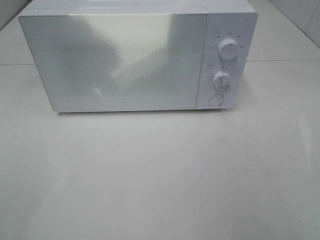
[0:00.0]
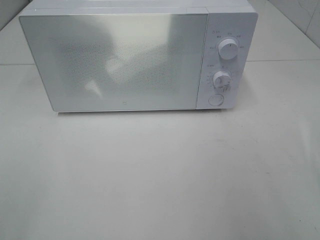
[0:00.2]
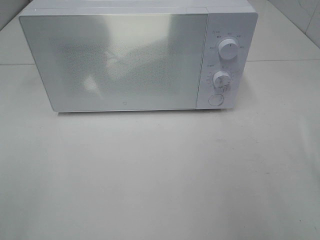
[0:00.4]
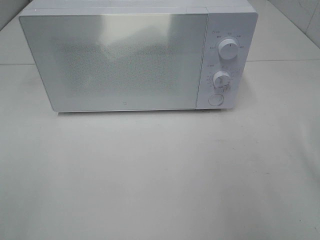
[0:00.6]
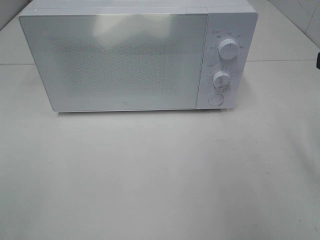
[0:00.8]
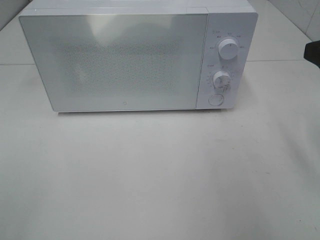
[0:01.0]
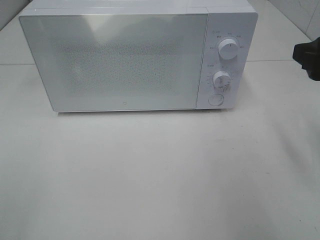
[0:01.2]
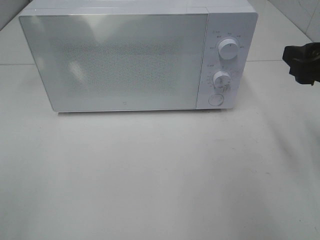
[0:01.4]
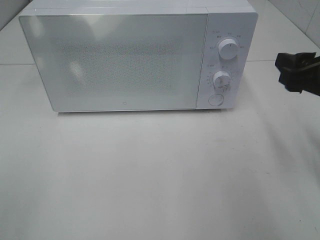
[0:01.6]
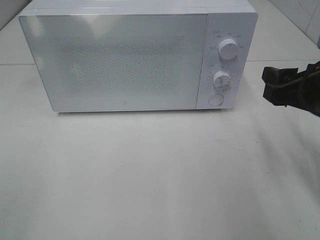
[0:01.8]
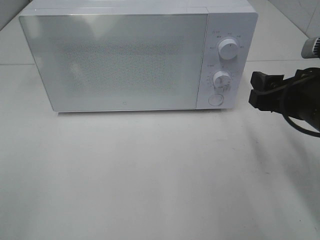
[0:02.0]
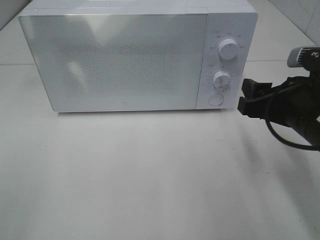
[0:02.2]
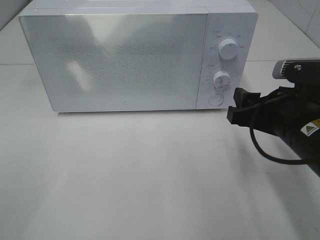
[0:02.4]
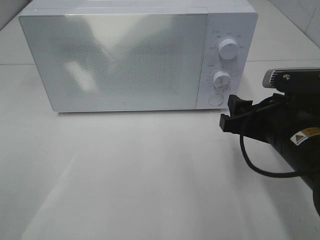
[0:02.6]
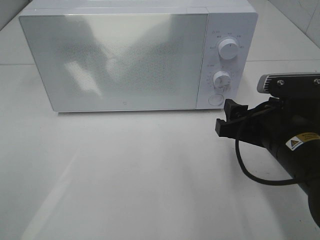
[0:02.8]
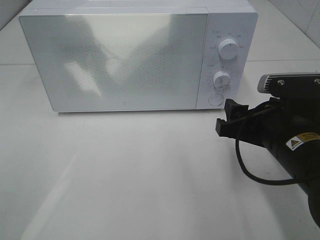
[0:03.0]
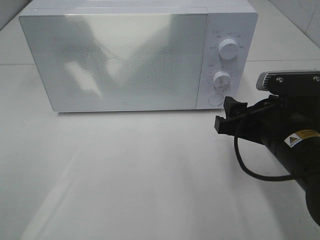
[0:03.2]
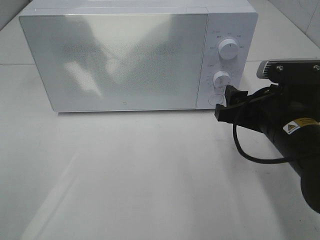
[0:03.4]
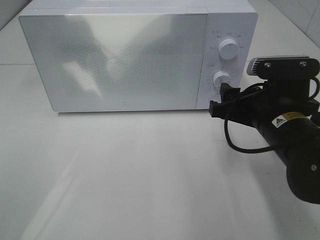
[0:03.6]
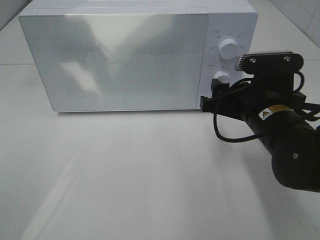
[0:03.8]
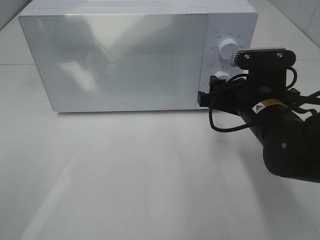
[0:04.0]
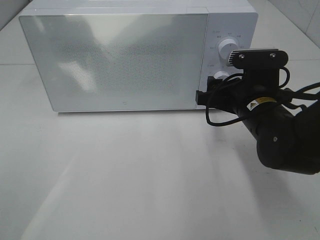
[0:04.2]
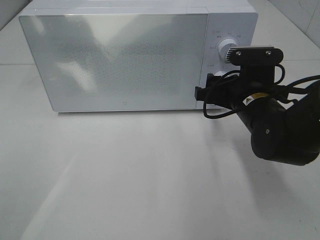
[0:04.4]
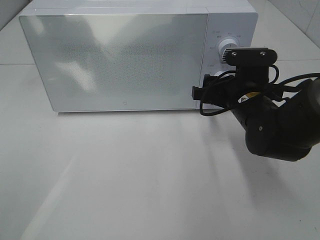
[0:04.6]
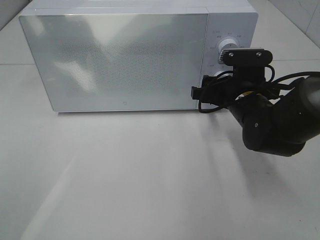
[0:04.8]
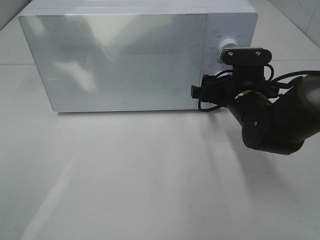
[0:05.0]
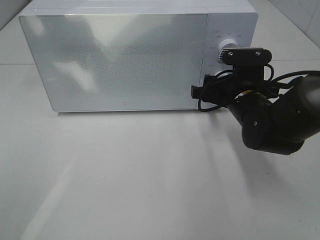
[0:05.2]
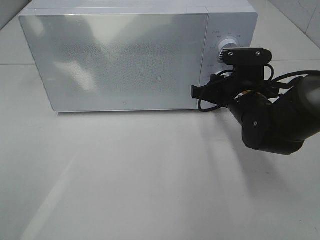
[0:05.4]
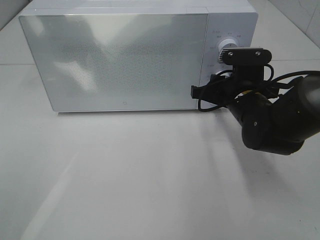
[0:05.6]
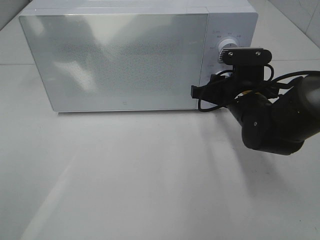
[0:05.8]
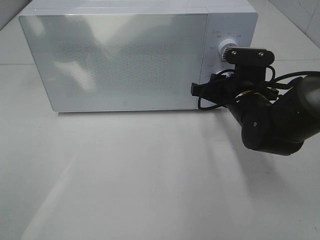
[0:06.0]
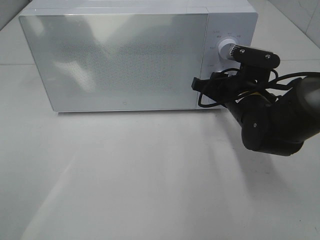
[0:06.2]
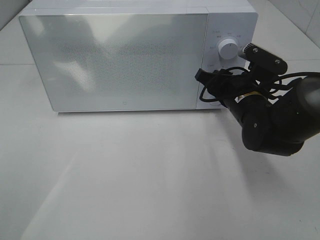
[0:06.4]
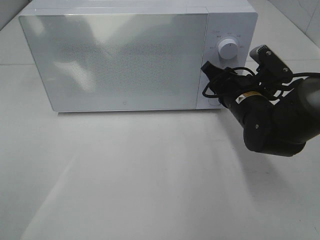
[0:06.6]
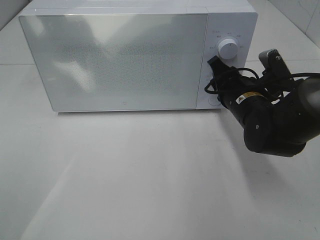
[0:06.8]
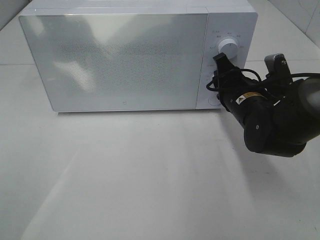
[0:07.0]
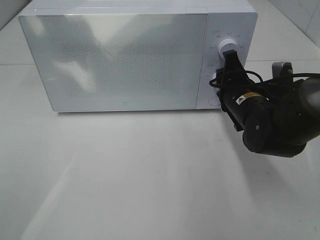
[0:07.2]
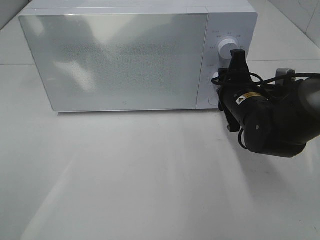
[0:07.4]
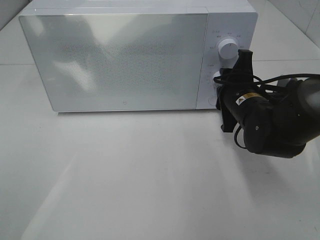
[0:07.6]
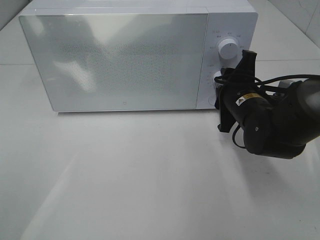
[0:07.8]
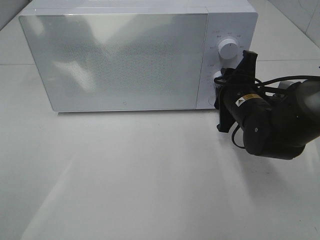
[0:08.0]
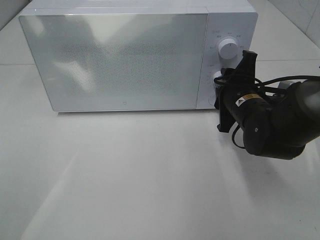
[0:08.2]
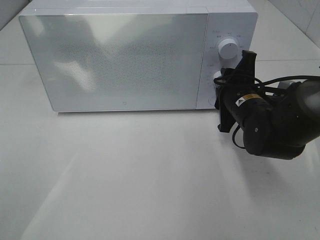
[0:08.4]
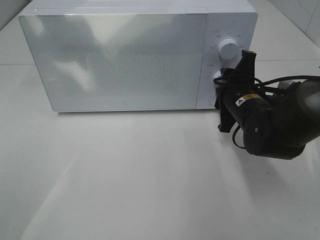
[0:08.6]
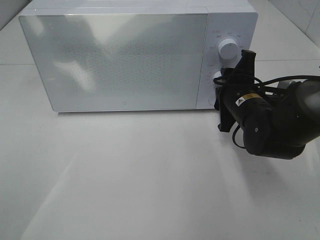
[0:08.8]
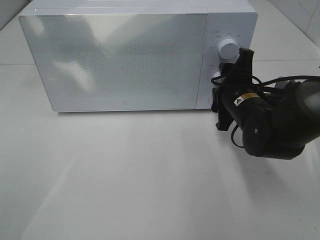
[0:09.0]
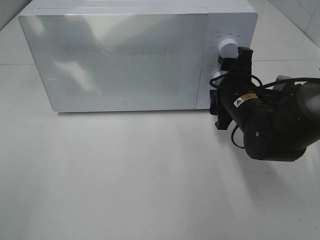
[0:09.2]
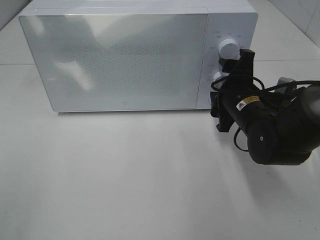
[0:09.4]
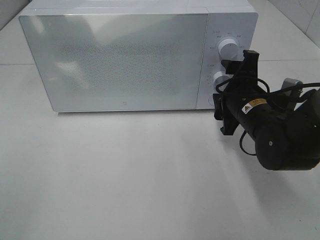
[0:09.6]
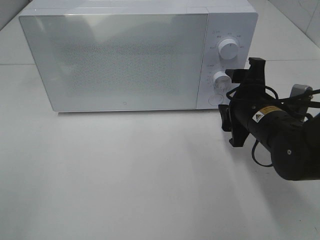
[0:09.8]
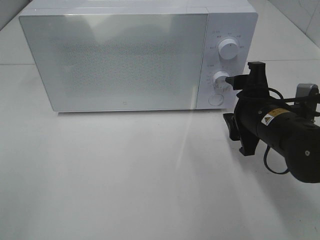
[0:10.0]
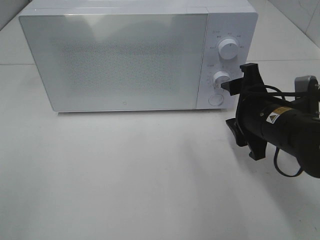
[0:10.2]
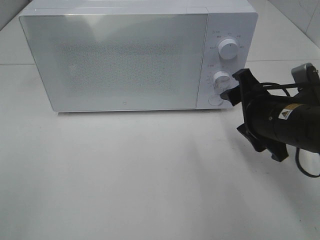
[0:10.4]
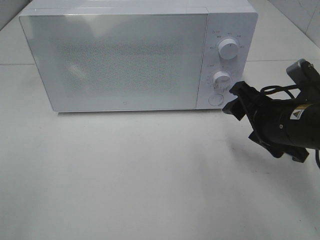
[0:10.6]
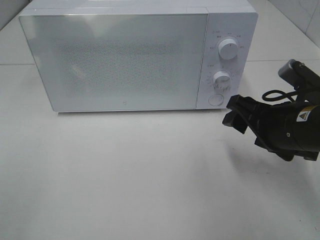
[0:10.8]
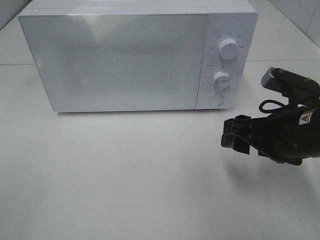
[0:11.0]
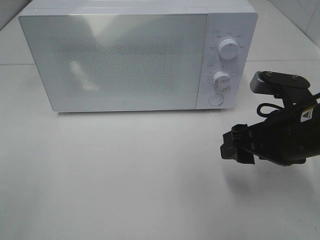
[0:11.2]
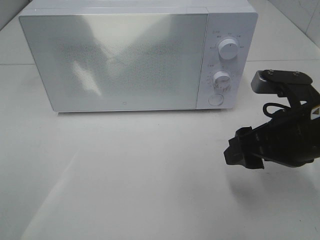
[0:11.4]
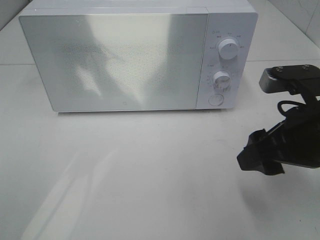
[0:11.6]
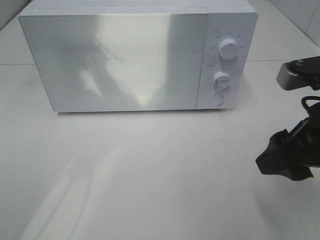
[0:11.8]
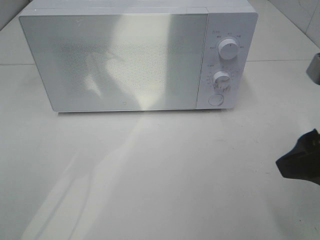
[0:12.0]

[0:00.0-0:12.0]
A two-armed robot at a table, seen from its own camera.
Task of the whole recording: Heat Sandwich.
Step, 0:00.0 to 0:09.2: Right hand: twist timer button.
0:00.0 to 0:01.6: The right gripper is displaced forward and downward by roughly 15 cm.
0:01.6 to 0:03.0: The right gripper travels to the left and downward by about 10 cm.
0:03.0 to 0:04.4: The right gripper is displaced forward by approximately 10 cm.
0:04.4 to 0:06.0: The right gripper closes.
0:07.6 to 0:09.0: The grippers move only a little.
0:09.0 to 0:10.4: The right gripper moves backward, approximately 10 cm.
0:10.4 to 0:12.0: The right gripper is displaced backward and upward by some 15 cm.

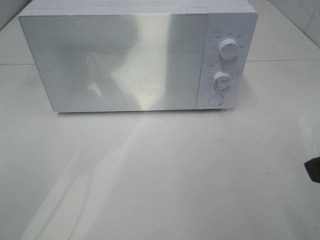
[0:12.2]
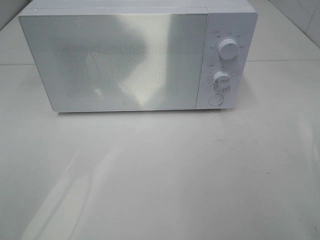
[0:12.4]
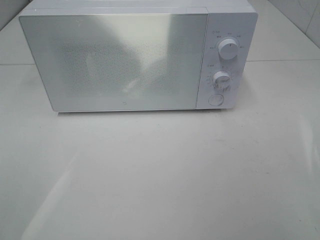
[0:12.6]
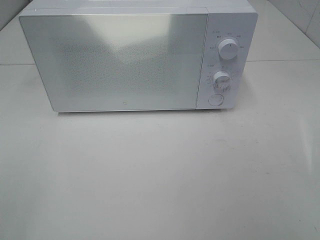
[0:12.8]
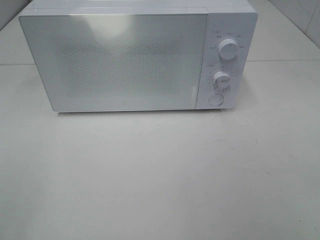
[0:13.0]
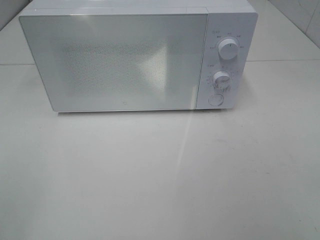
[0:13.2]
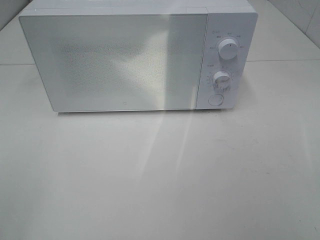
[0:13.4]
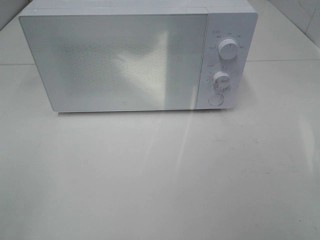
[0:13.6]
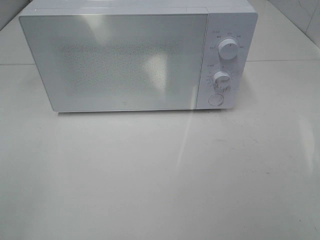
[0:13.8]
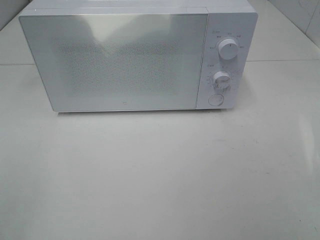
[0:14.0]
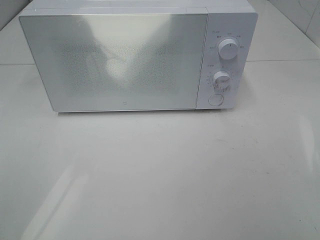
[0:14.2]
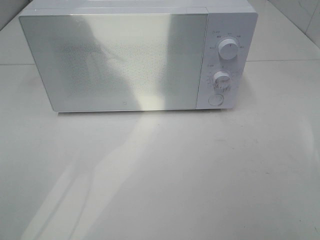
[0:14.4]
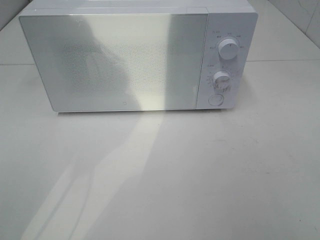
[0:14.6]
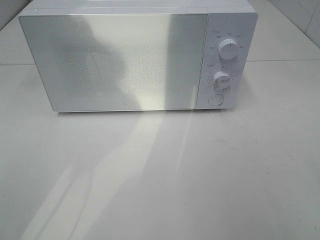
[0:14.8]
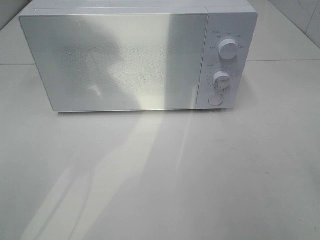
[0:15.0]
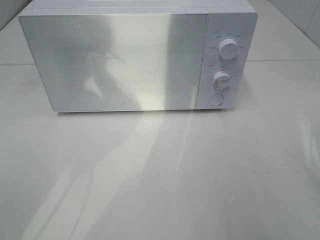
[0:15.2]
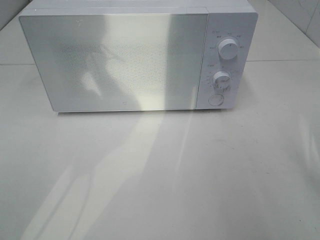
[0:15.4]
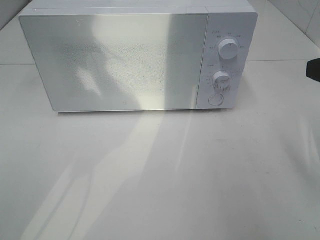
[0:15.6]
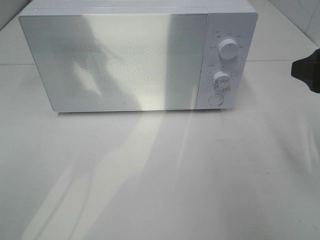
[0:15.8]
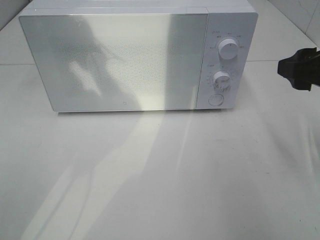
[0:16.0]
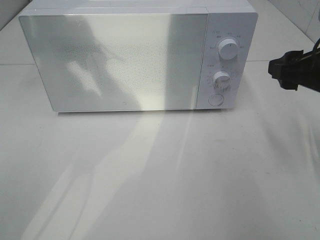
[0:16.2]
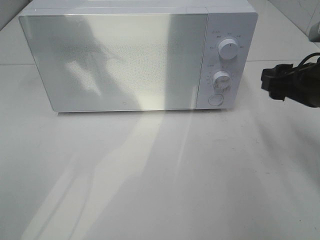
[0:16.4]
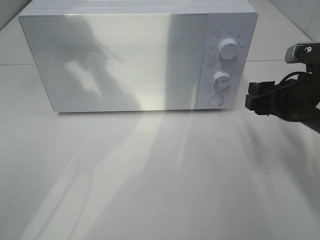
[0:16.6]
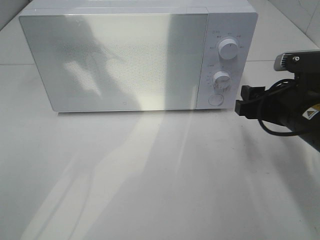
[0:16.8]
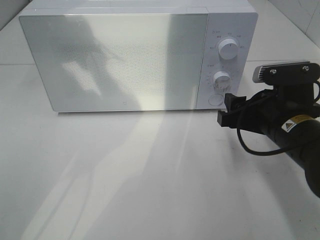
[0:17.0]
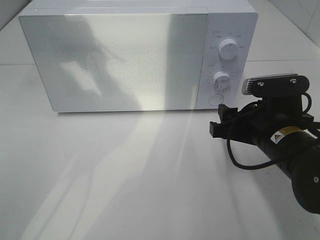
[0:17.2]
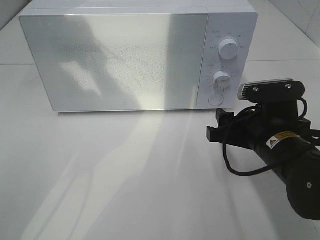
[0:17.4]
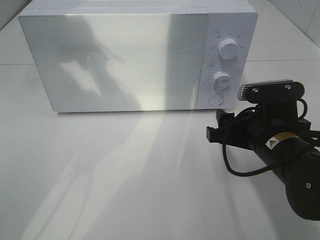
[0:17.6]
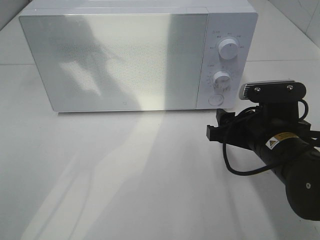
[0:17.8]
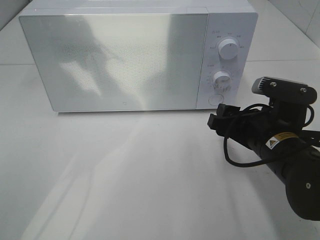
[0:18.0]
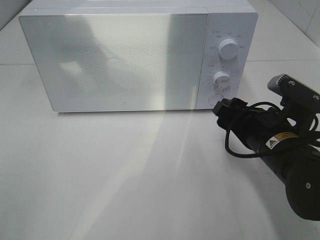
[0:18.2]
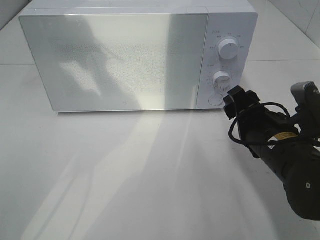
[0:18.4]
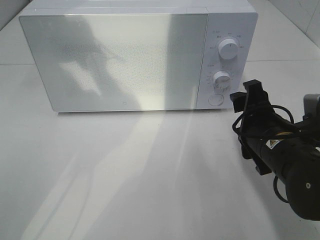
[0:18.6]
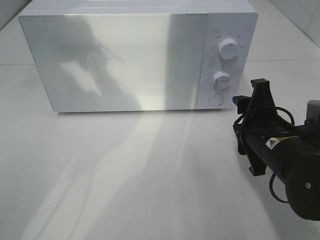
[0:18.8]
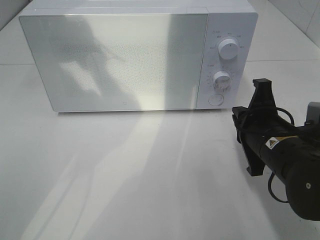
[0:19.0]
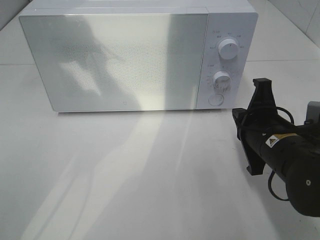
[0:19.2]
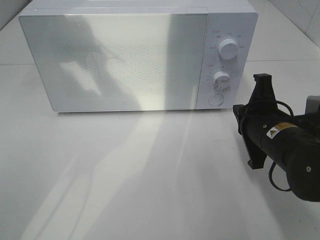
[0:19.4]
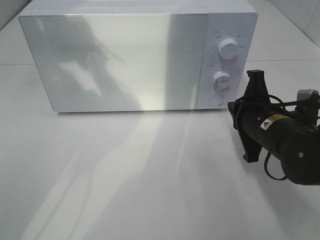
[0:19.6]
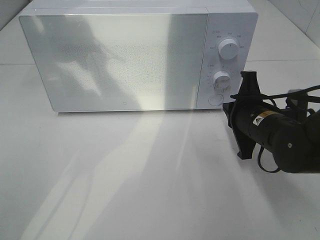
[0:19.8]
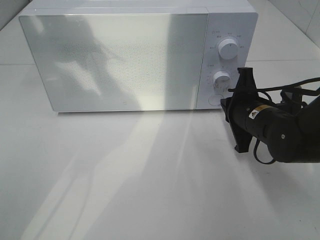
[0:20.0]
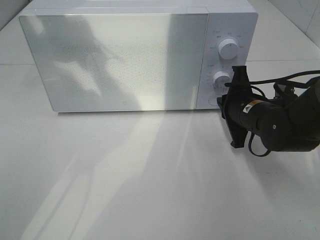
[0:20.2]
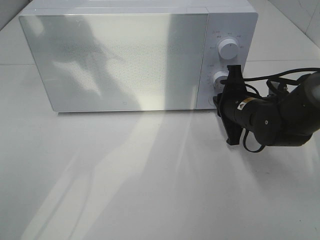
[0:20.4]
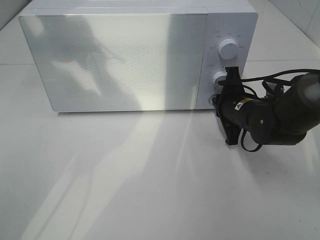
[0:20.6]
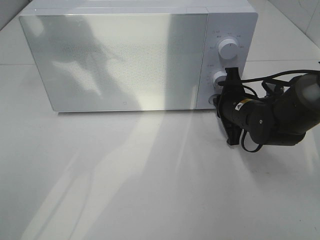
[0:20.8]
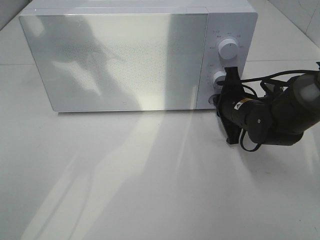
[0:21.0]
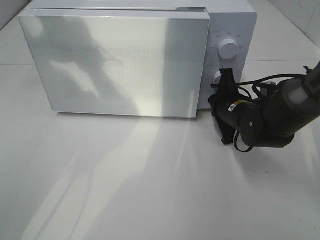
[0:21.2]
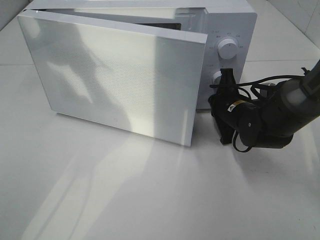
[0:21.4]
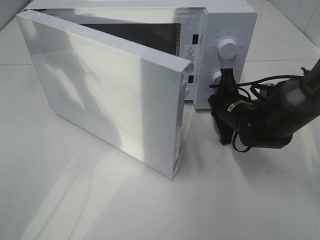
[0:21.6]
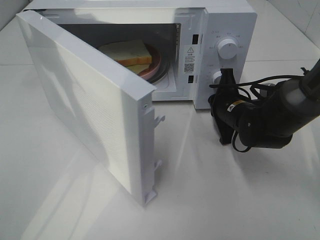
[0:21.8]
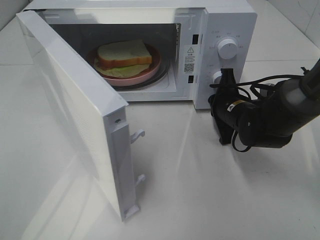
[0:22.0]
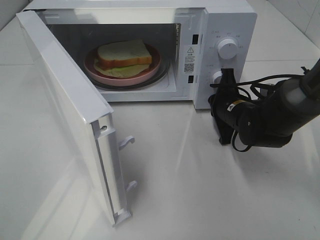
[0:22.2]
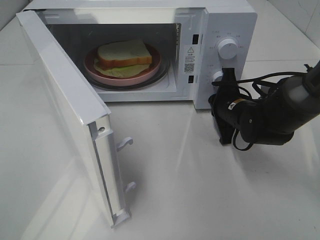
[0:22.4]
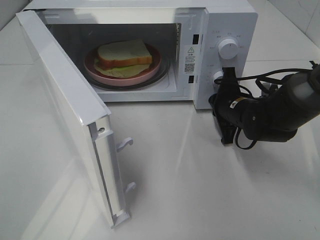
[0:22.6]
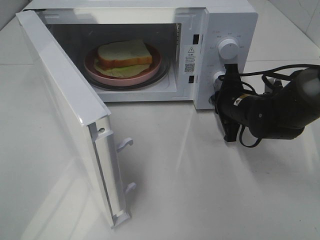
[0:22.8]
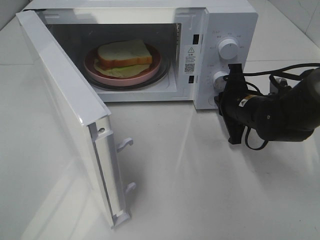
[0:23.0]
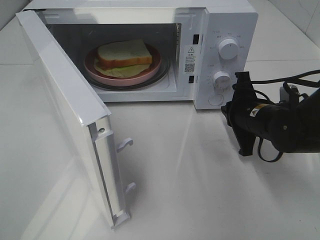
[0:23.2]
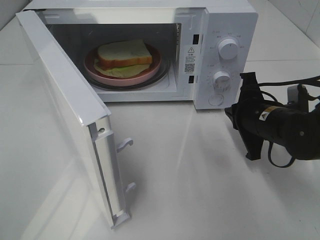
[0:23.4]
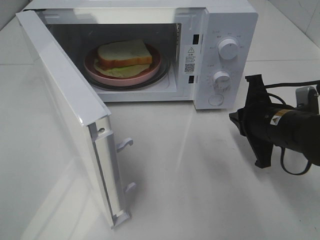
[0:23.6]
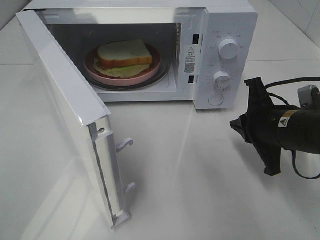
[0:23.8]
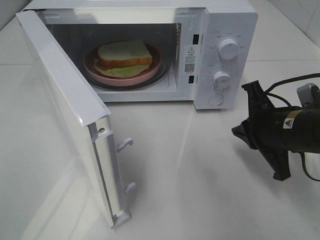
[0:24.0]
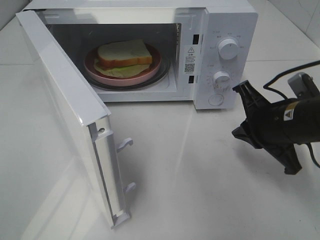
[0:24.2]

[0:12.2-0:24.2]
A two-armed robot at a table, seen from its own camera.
Task of the whole recording: Heat Sandwich.
Step, 0:12.2 to 0:23.0: Right hand: press the switch.
0:12.2 to 0:13.8: The right gripper heads backward and to the right, covering roughly 10 cm.
0:13.8 to 0:15.2: The right gripper shifts about 15 cm forward.
0:15.2 to 0:16.6: The right gripper moves downward and forward, about 15 cm.
0:16.6 to 0:18.2: The right gripper travels to the left by some 5 cm.
0:18.2 to 0:19.8: The right gripper goes approximately 5 cm forward, and closes its fingers.
0:19.8 to 0:21.2: The right gripper travels forward by some 5 cm.
0:22.6 to 0:24.2: The right gripper is displaced backward and upward by roughly 15 cm.
